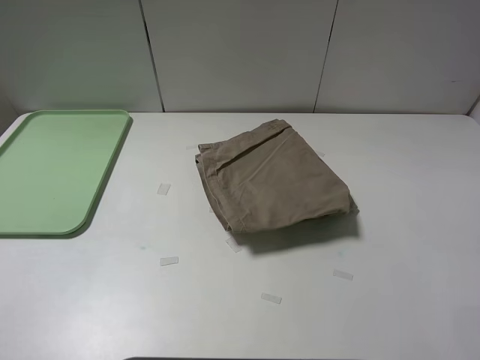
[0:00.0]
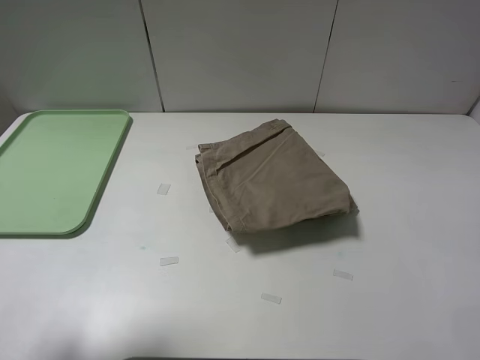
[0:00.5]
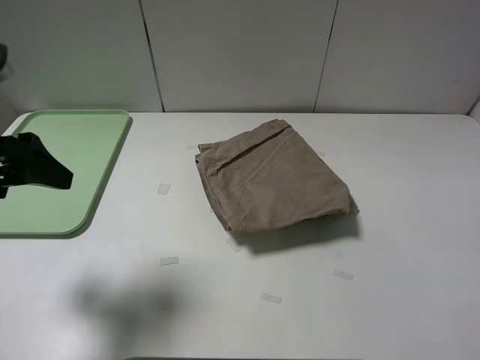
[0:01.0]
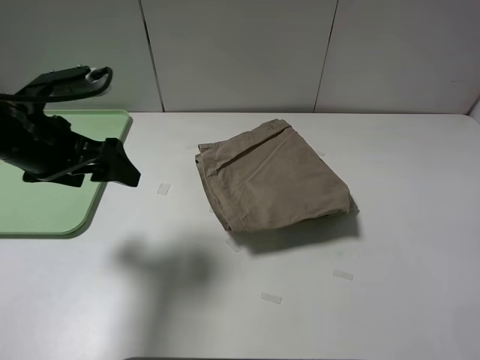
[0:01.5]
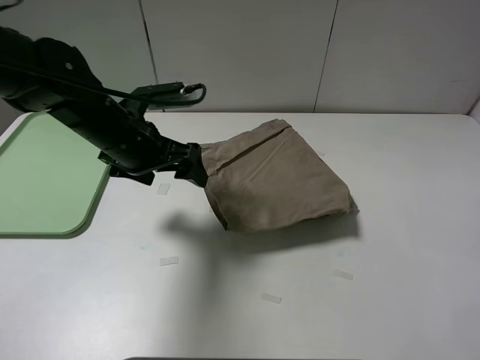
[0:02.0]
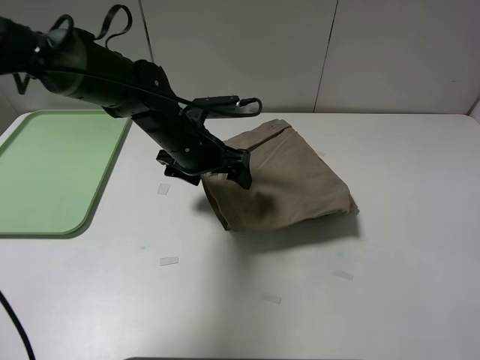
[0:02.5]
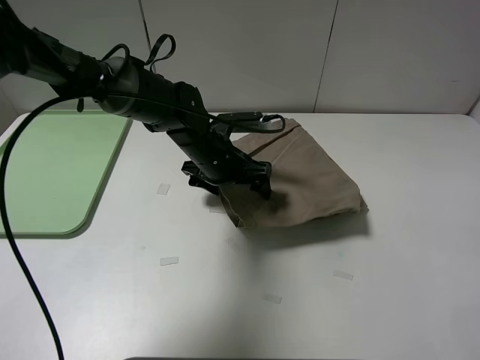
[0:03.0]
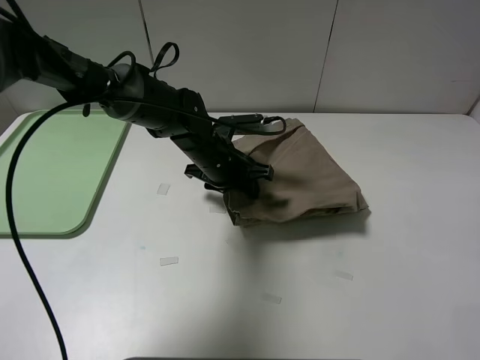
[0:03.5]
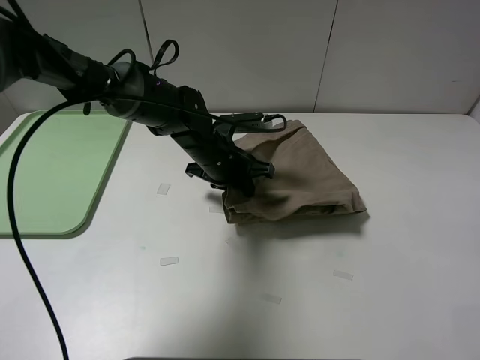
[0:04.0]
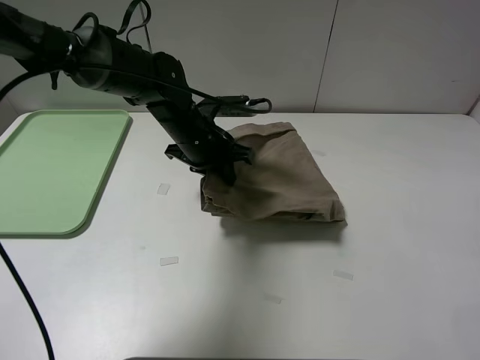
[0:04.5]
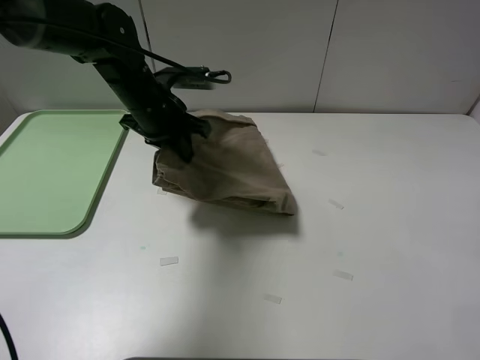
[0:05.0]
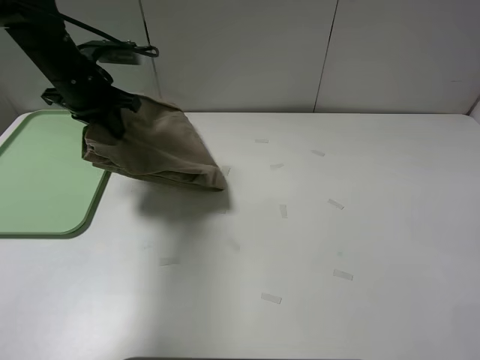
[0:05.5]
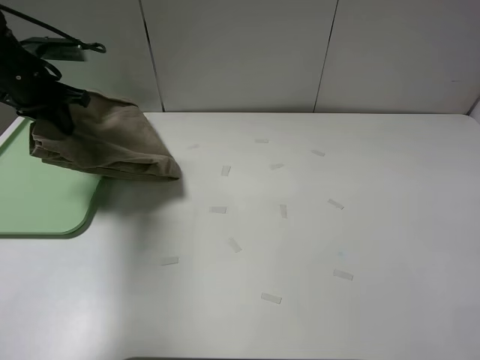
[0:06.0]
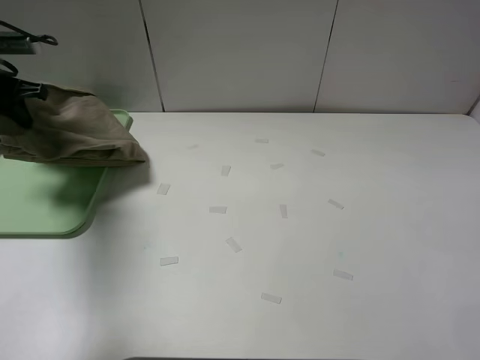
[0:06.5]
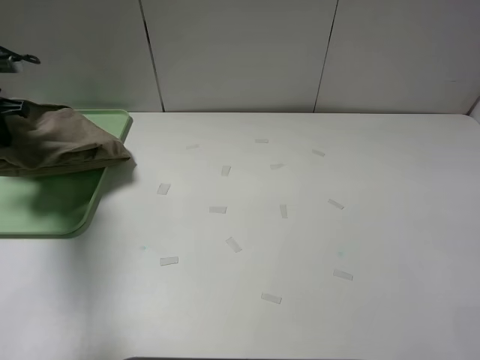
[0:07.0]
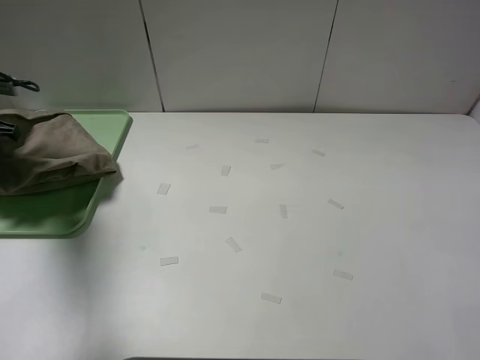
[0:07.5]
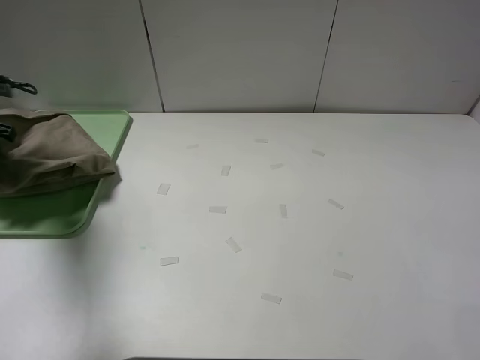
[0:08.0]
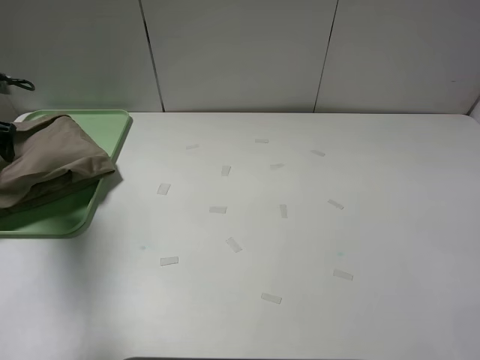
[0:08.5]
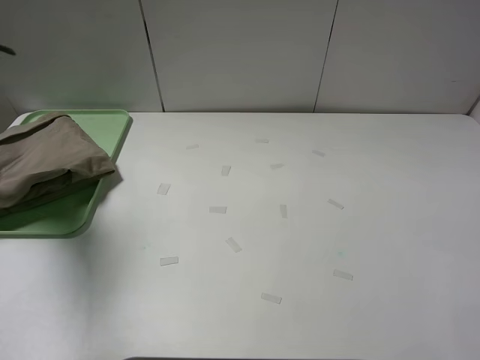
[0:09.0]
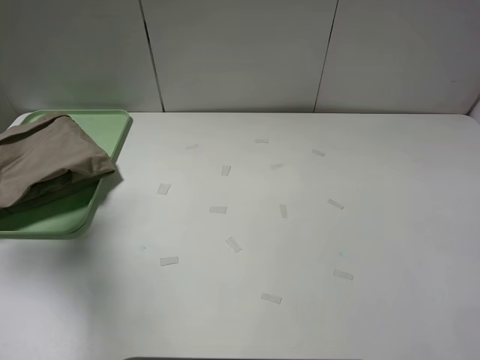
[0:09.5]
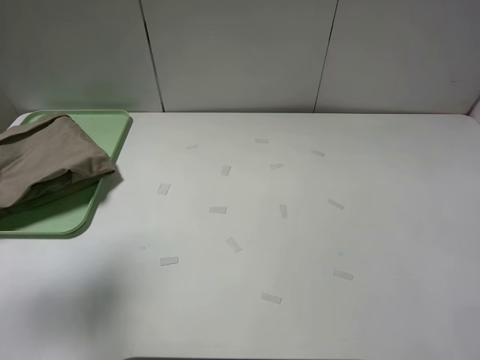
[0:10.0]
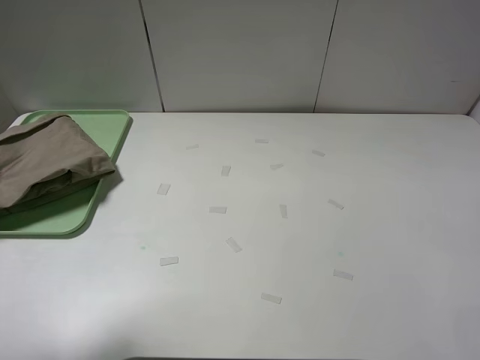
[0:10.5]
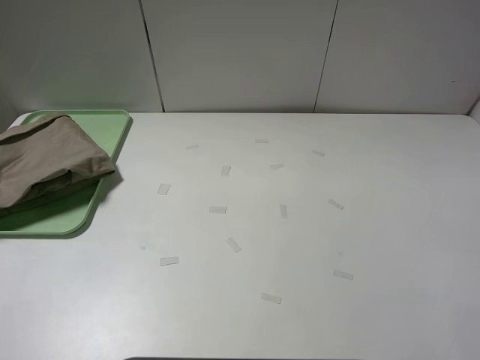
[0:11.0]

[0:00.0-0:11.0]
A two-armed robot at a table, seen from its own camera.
Task of the whole recording: fold the khaki jeans in half with two grippers, then fold them in half again, and use the left claw to place the folded fold khaki jeans on the tray.
Step, 0:00.0 to 0:03.5: Grasp the khaki trousers with the left gripper.
Step, 0:04.0 to 0:08.5: Place the folded khaki trousers on the green tray with the left gripper.
0:00.0 to 0:02.0: The left gripper goes some 35 cm forward, to the right and downward.
0:02.0 to 0:03.5: The left gripper moves to the right, downward and forward, roughly 15 cm, and closes.
0:03.5 to 0:05.5: The left gripper travels to the left and upward by some 25 cm.
0:05.5 to 0:07.5: The left gripper moves to the left, some 20 cm.
0:07.5 to 0:09.0: The left gripper moves upward, about 5 cm, and opens its fingers.
0:09.0 to 0:11.0: The left gripper goes roughly 35 cm backward.

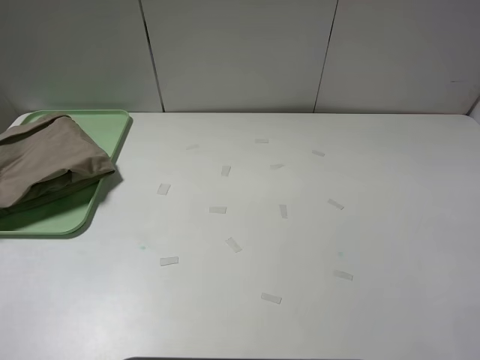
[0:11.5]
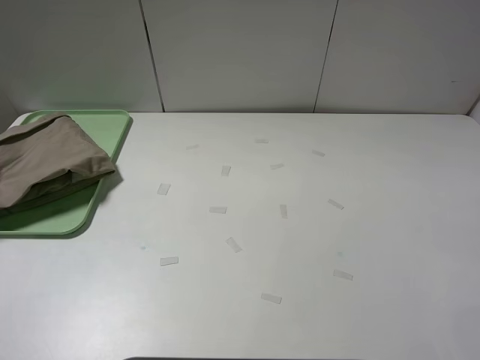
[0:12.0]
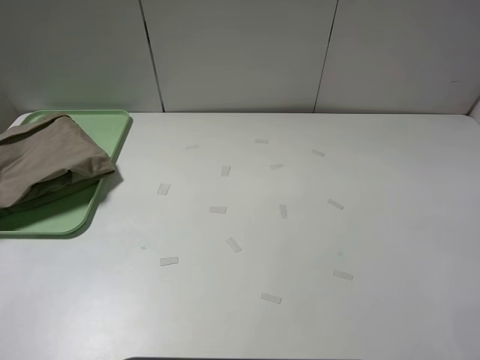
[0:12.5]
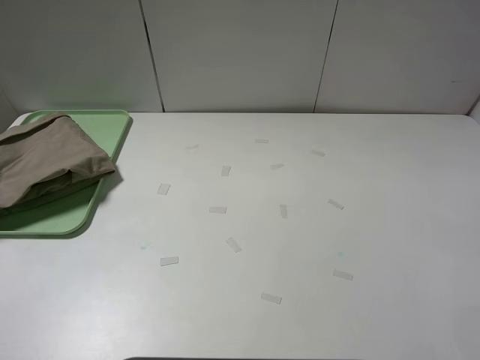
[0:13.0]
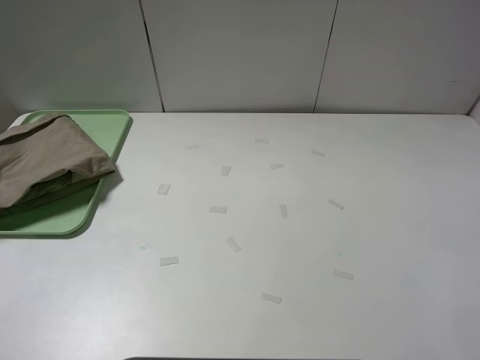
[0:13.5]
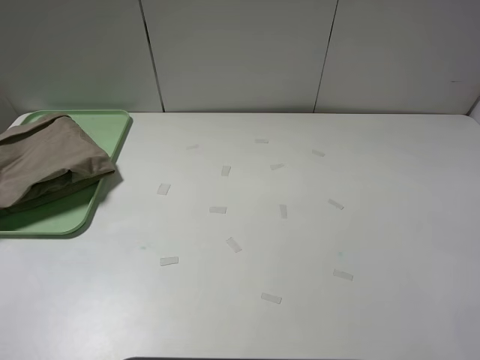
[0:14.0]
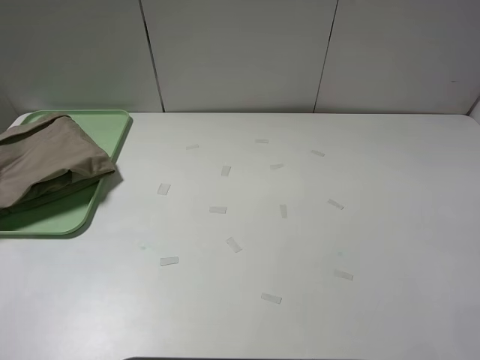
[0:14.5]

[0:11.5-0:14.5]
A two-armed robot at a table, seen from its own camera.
Task of the whole recording: fold the khaki jeans in half with two grippers, then fold them in half again, and use the left claw to place the folded fold khaki jeans on the tray.
0:13.0 to 0:14.5: Both grippers stay about where they are.

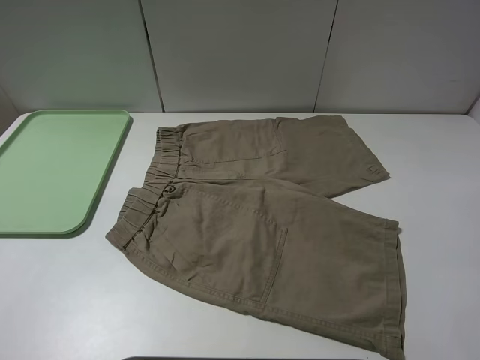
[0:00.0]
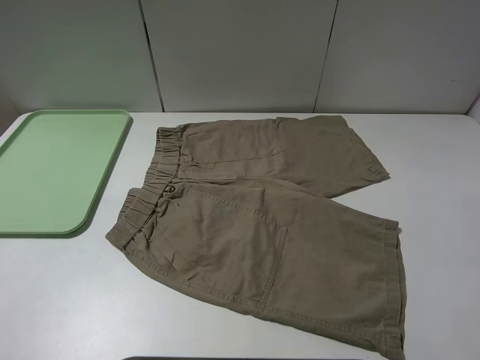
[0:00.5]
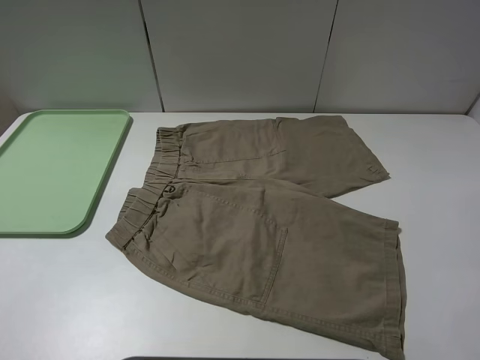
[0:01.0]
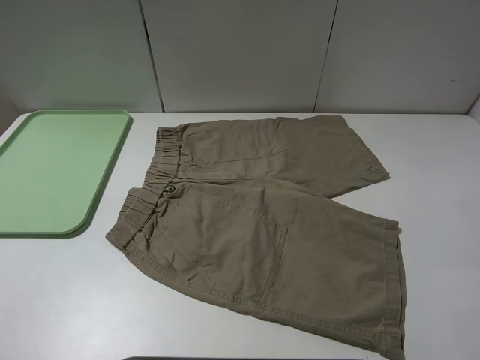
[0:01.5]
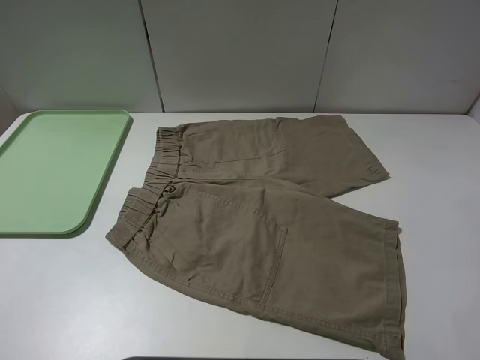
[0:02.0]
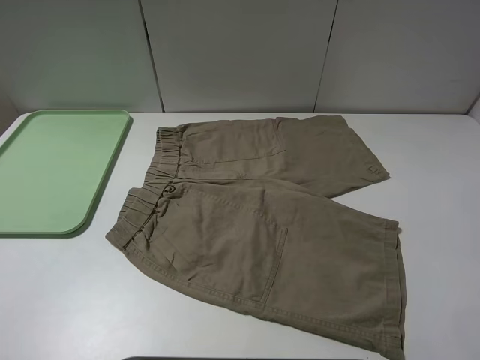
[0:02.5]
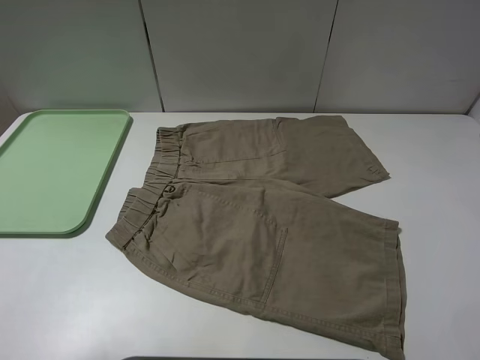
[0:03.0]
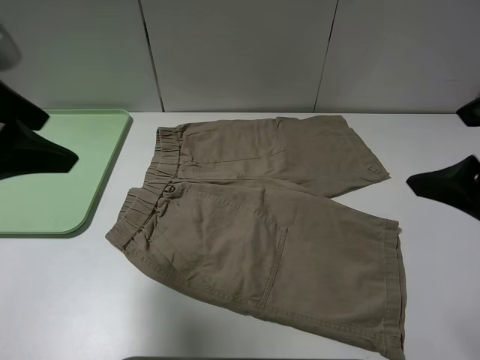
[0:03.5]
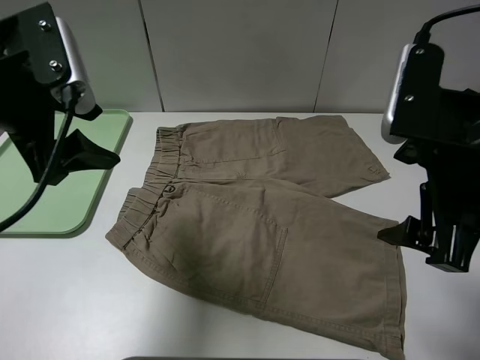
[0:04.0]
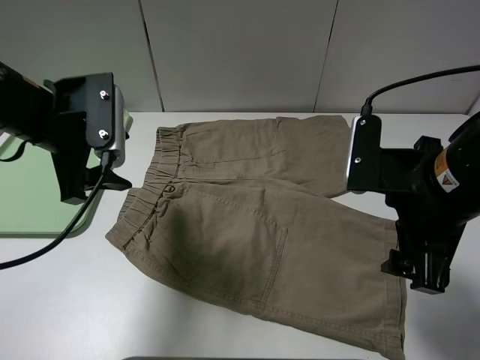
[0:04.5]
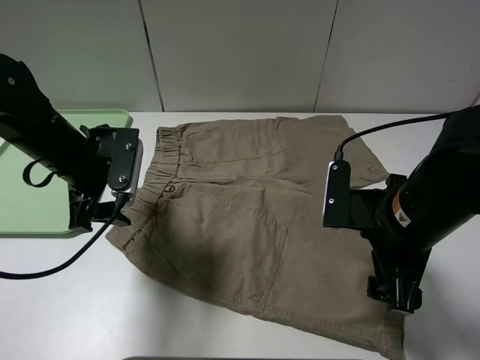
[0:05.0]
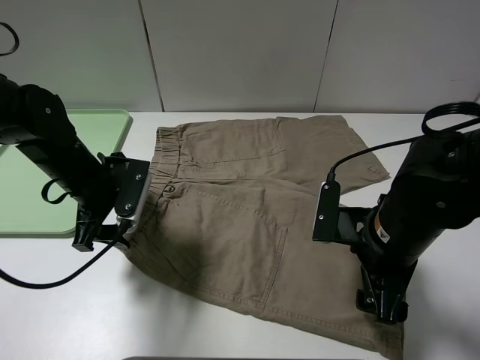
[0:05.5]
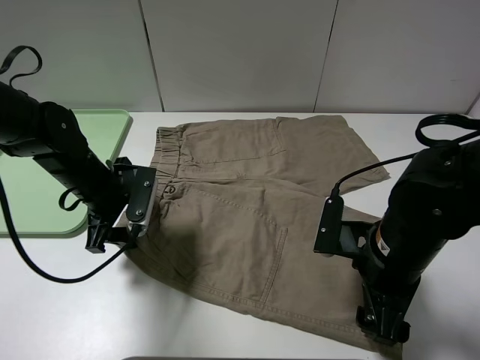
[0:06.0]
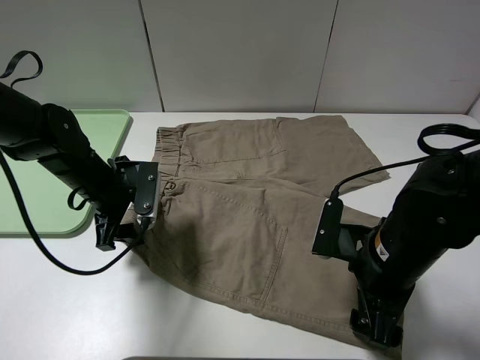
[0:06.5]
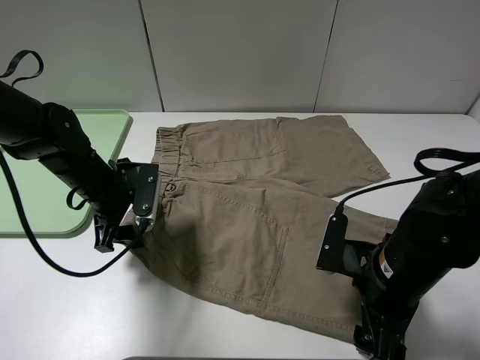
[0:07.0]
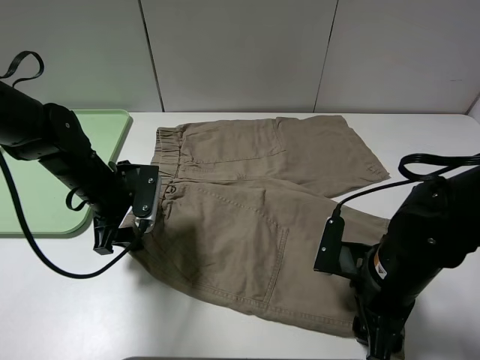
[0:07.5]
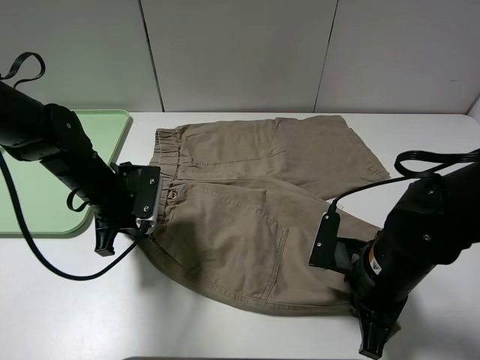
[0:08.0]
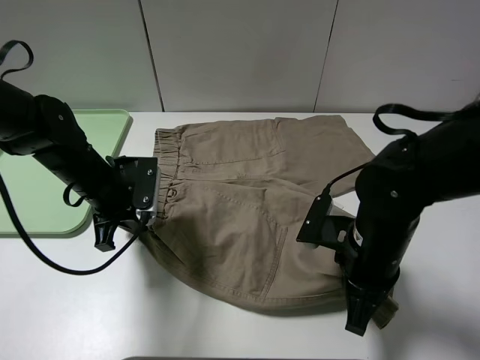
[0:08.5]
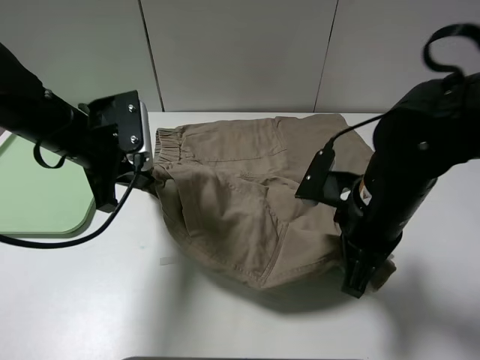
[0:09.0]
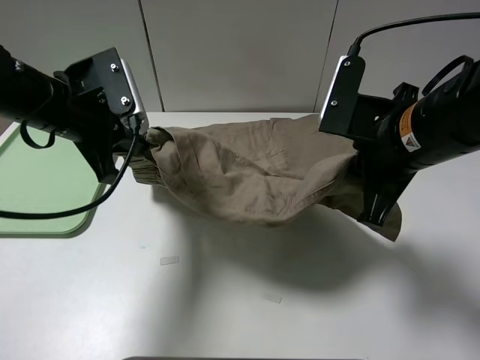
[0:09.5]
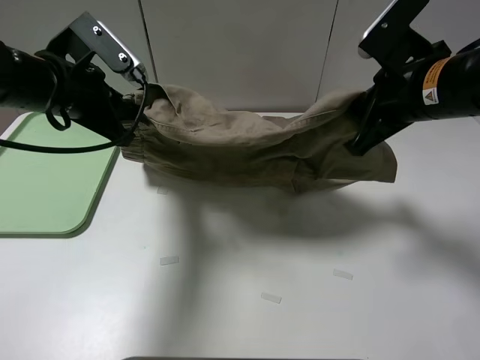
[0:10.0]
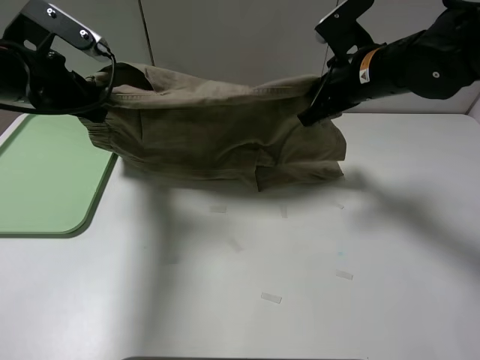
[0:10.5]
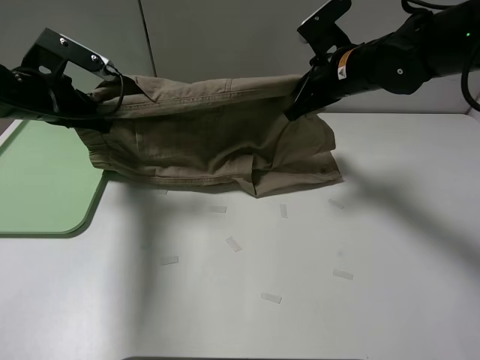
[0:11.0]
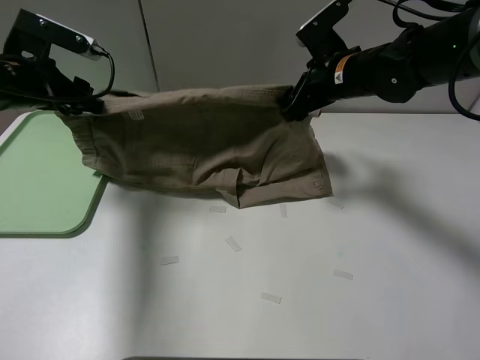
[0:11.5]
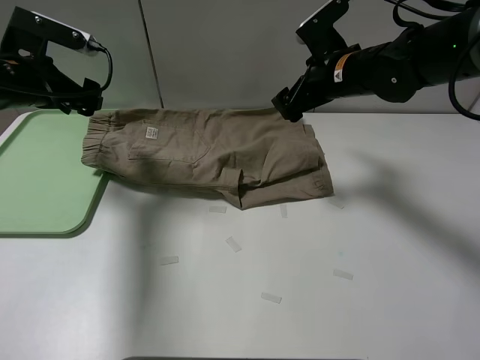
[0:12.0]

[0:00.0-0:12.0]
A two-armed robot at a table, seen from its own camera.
Task of the whole recording: fold the khaki jeans in half with two grippers, then fold them in half again, and use the left claw to place the folded fold khaki jeans on the tray.
Step, 0:00.0 to 0:08.0: Grasp the khaki trousers with the left gripper.
Step, 0:08.5 to 0:11.5: Fold the khaki trousers upwards with the left gripper.
0:00.0 to 0:02.0: Neither gripper changes place.
0:02.0 to 0:04.0: The right gripper goes about 20 cm forward and to the left. The left gripper heads forward, covering roughly 25 cm.
0:04.0 to 0:06.0: Both grippers move downward, some 15 cm.
0:06.0 to 0:08.0: The right gripper closes. Meanwhile the left gripper closes up.
0:08.0 to 0:10.0: The left gripper goes some 15 cm upward; the right gripper heads upward and forward, covering some 20 cm.
0:10.0 to 0:12.0: The left gripper heads to the left, covering about 5 cm, and opens its fingers, while the right gripper is displaced forward by roughly 10 cm, and opens.
